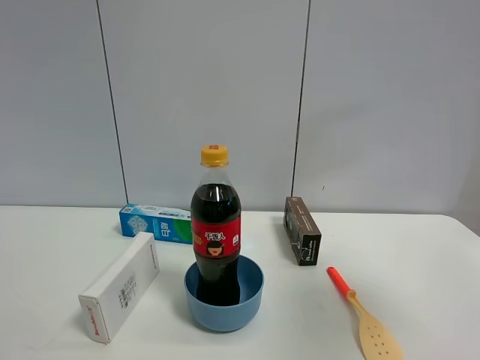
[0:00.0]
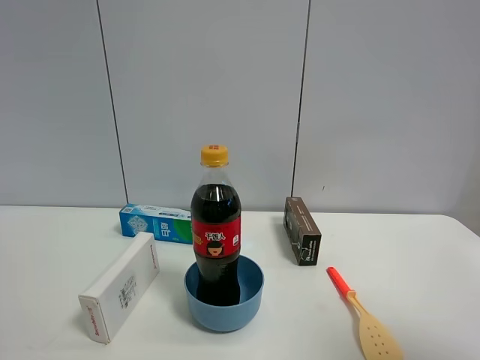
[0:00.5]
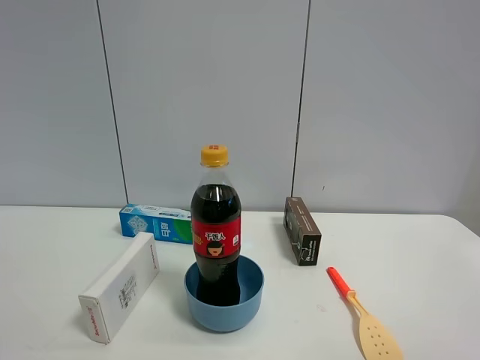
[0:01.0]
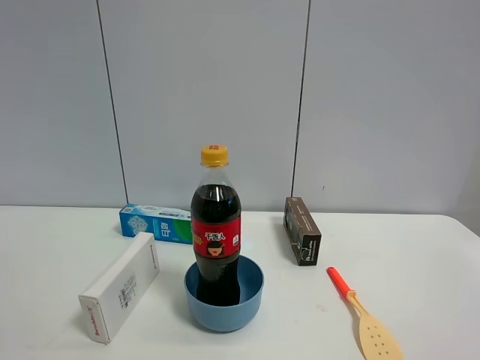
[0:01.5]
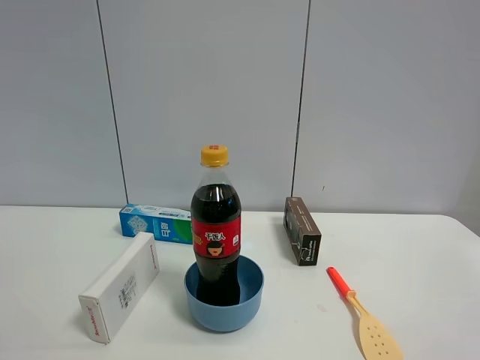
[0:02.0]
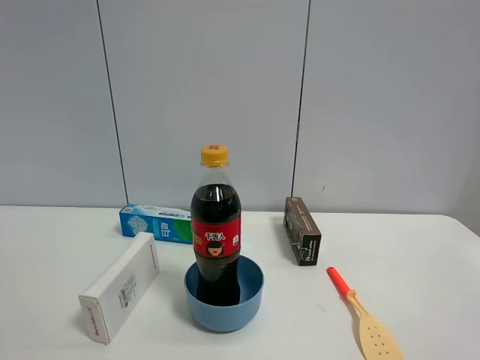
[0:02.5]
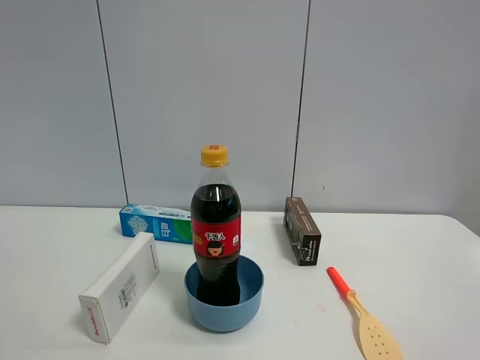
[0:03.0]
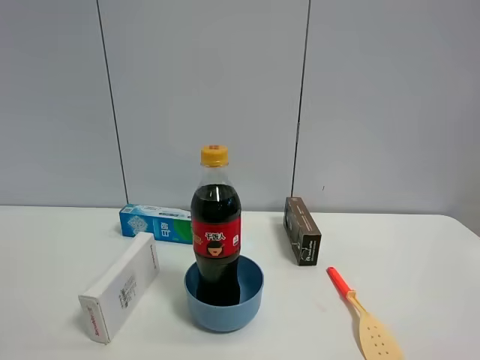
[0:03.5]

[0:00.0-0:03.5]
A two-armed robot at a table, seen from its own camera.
Task of the whole recording: the gripper move the object.
0:00.0 to 0:02.0: The right gripper goes roughly 20 cm backward and downward.
0:02.0 to 0:03.5: The two grippers keep their place.

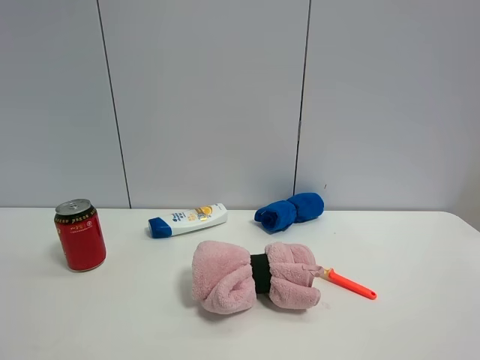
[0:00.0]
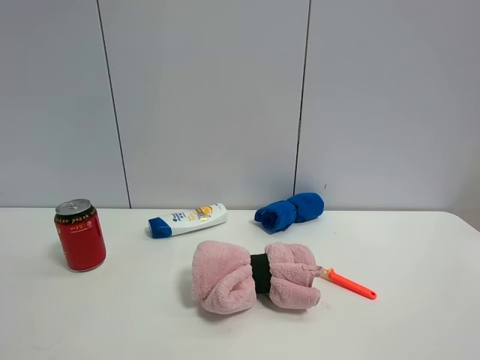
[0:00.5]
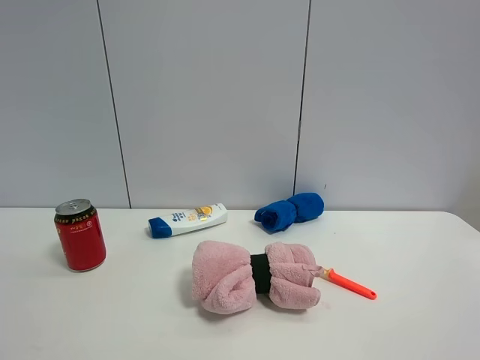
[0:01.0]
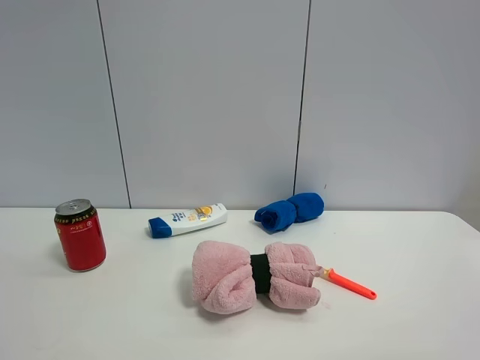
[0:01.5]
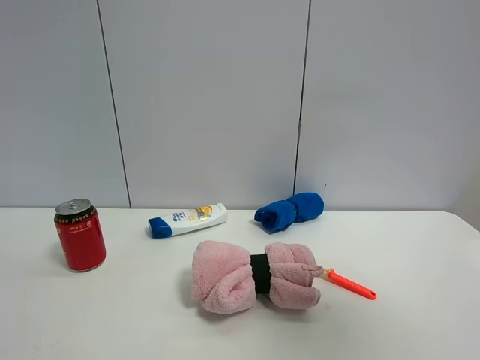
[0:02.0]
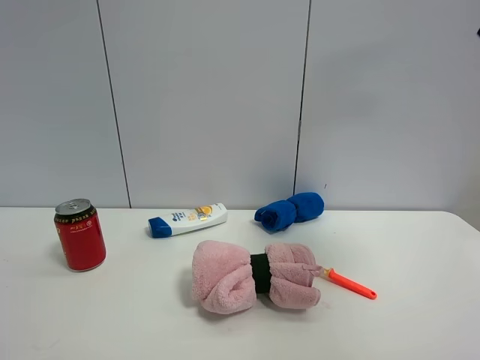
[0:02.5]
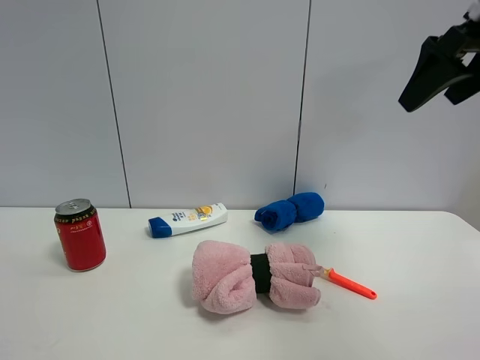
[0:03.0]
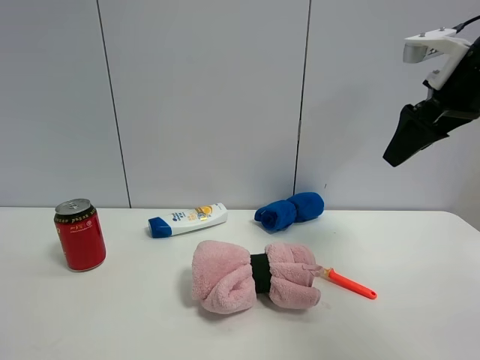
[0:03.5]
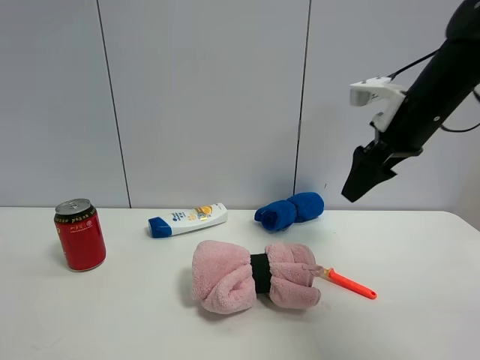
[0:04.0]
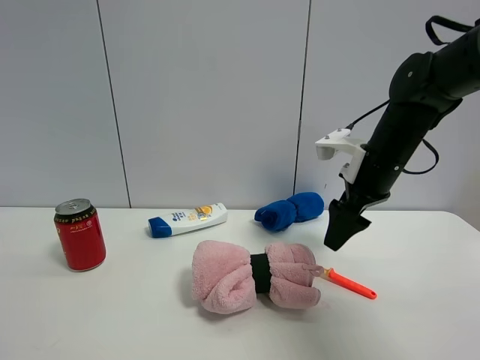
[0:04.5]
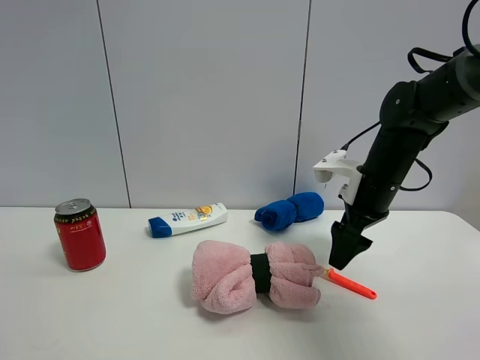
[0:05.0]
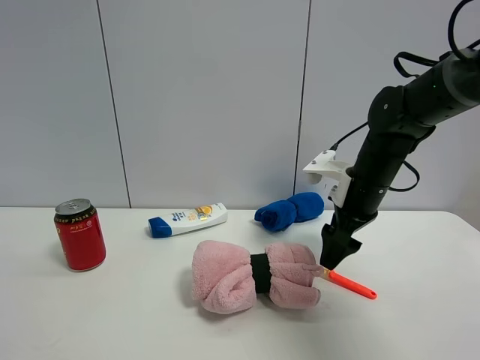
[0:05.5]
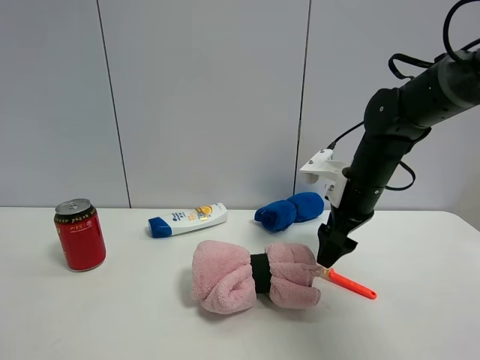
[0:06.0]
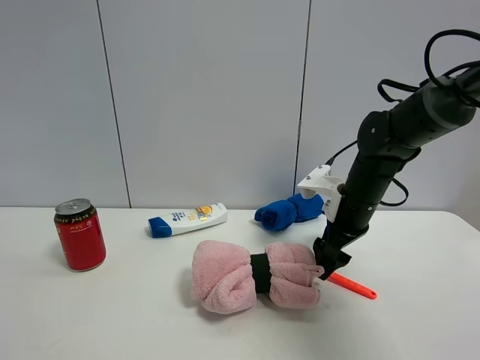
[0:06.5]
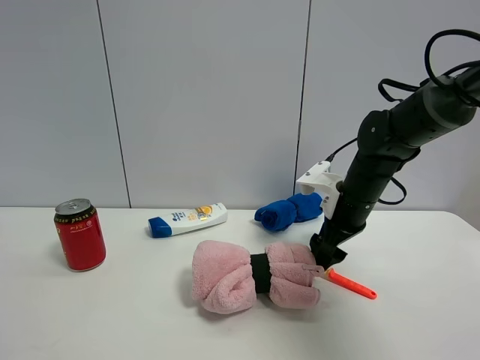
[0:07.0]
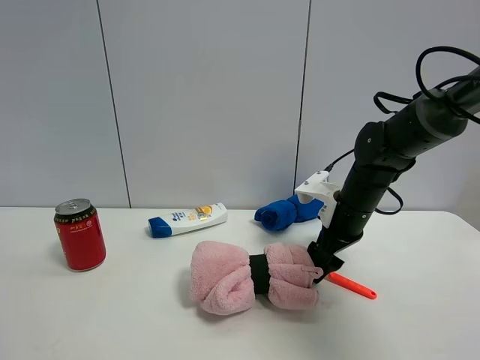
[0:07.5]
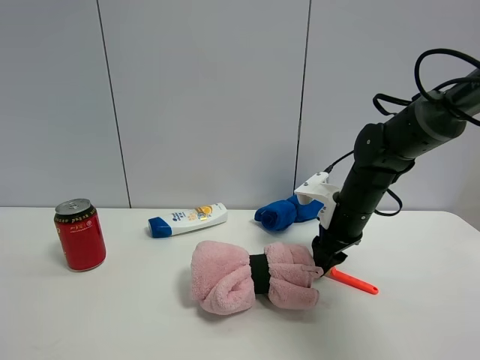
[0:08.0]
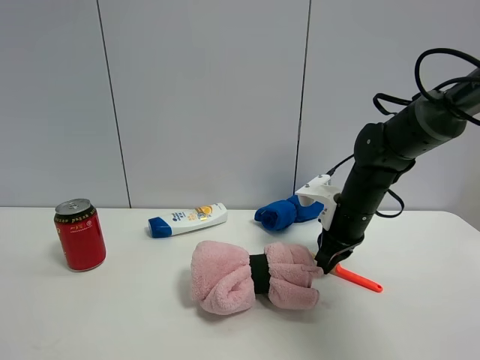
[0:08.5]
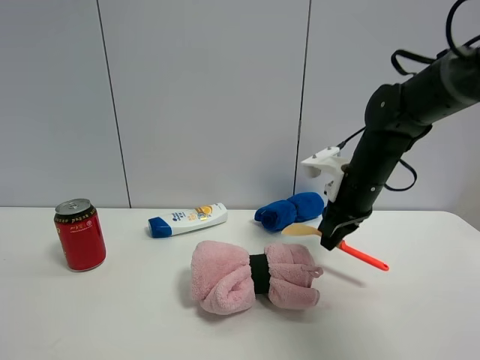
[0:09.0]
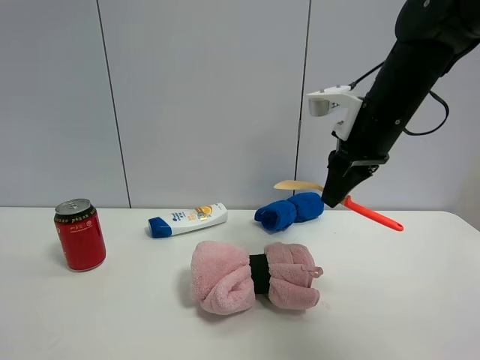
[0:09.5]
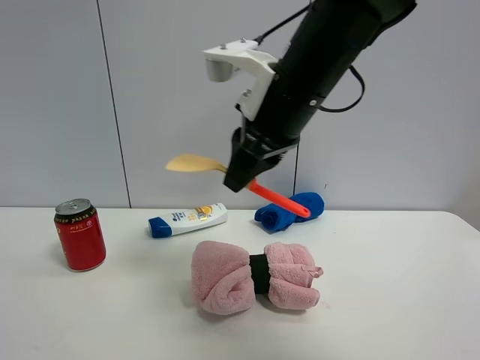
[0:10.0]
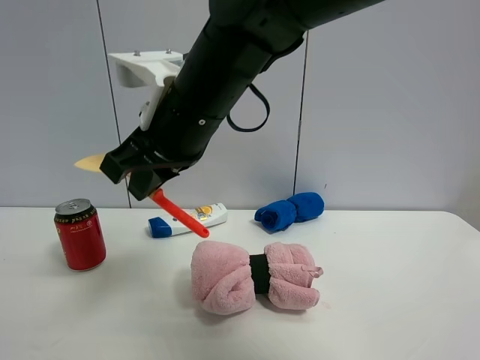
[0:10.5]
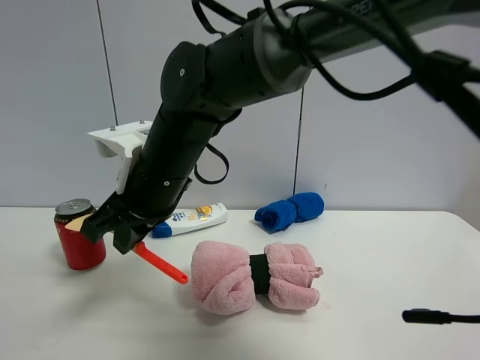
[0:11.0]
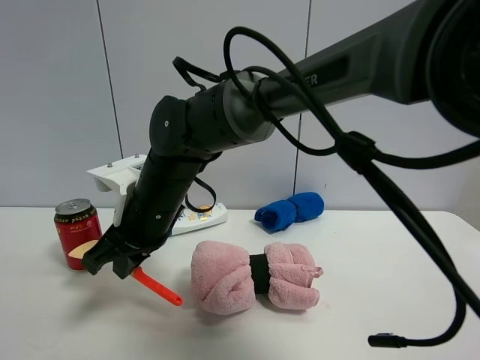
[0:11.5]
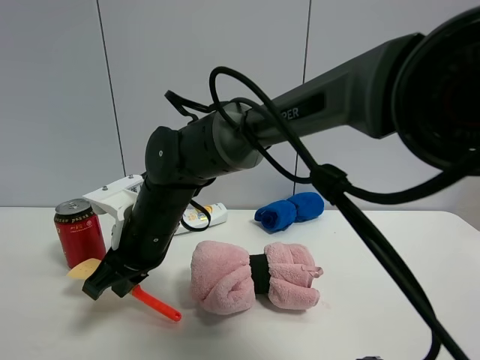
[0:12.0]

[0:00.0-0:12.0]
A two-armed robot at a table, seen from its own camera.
Task of the whole recording: the gripper move the object.
Step, 0:00.0 to 0:08.0: Grasp the cooking shovel with the right gripper.
0:00.0 to 0:02.0: The right gripper moves upward and forward, some 20 cm.
0:02.0 to 0:04.0: The right gripper moves forward and downward, some 35 cm.
0:04.0 to 0:06.0: The right gripper moves downward, roughly 10 cm.
0:06.0 to 0:08.0: The right gripper closes up.
0:08.0 to 0:10.0: The right gripper heads upward, to the left and backward, covering approximately 25 cm, and closes its fingers.
0:10.0 to 0:12.0: The right gripper travels downward and to the left by roughly 20 cm.

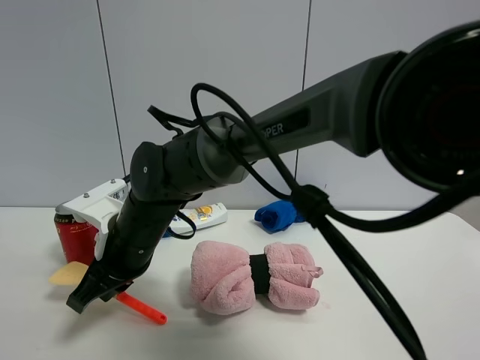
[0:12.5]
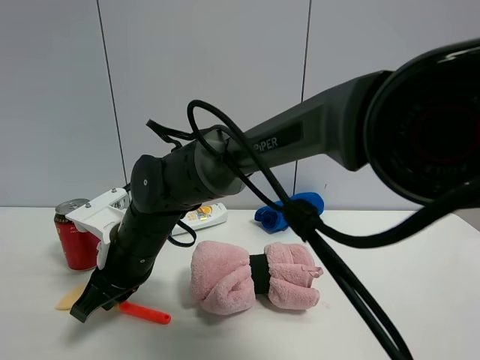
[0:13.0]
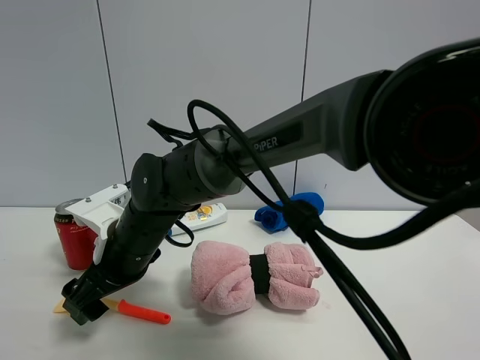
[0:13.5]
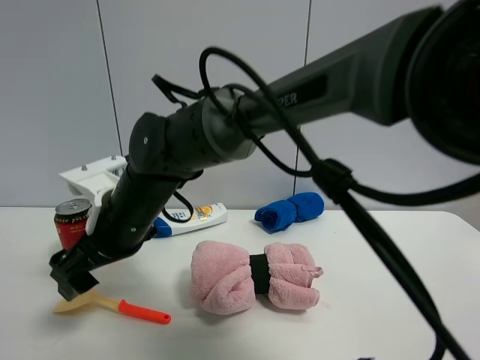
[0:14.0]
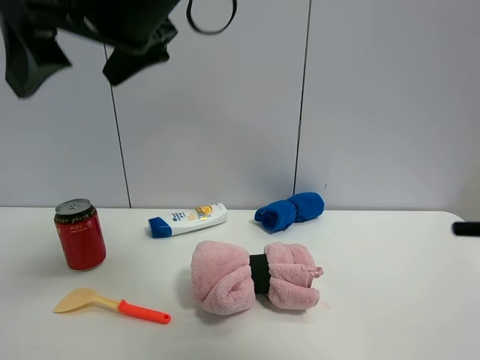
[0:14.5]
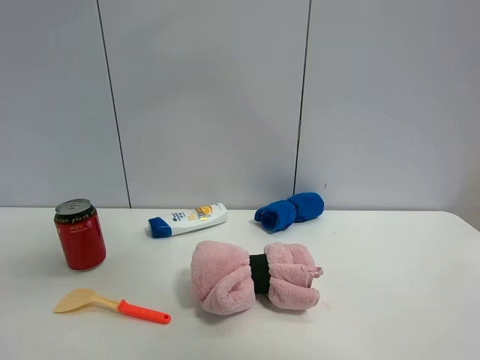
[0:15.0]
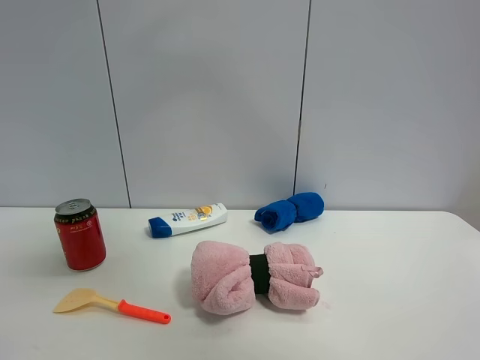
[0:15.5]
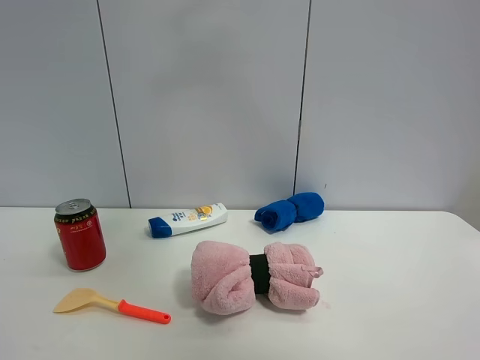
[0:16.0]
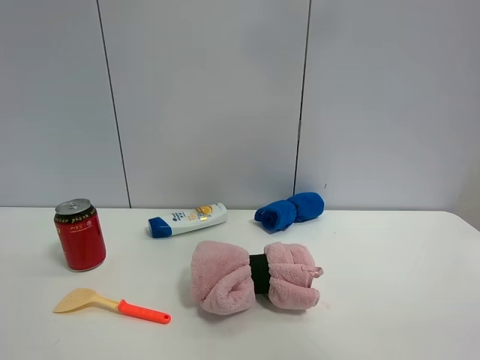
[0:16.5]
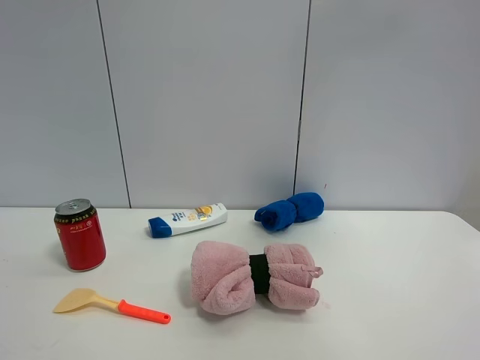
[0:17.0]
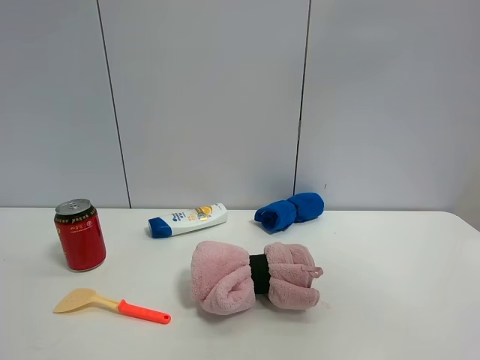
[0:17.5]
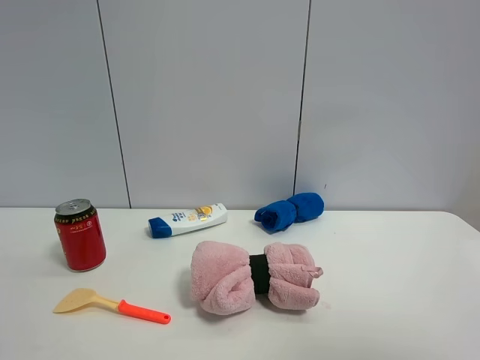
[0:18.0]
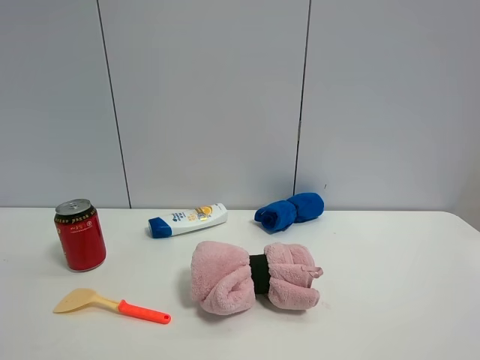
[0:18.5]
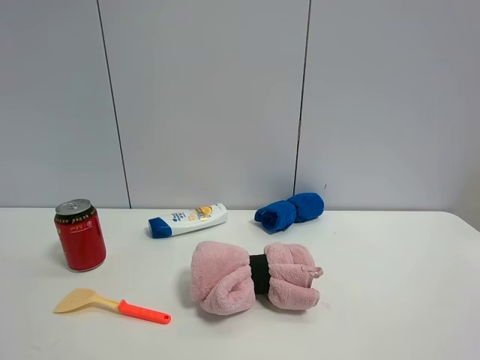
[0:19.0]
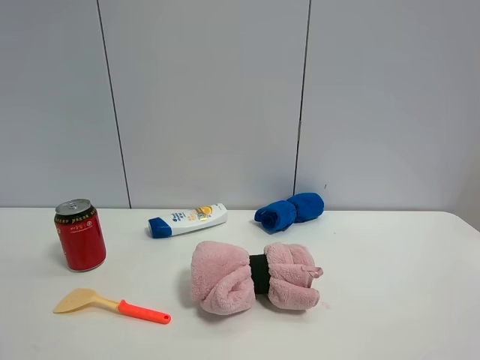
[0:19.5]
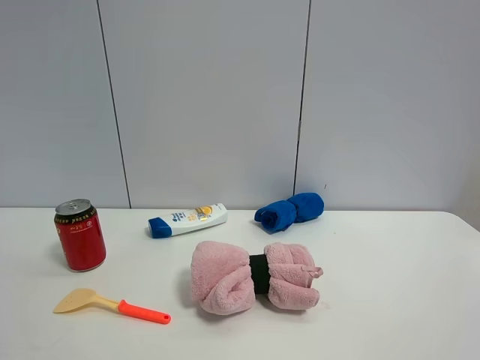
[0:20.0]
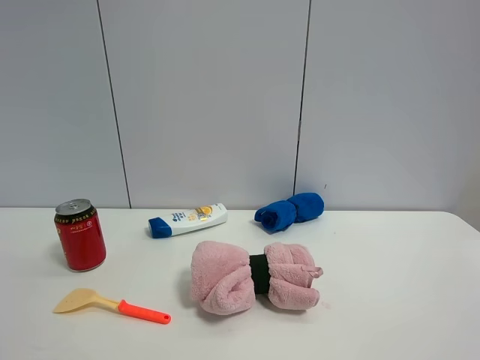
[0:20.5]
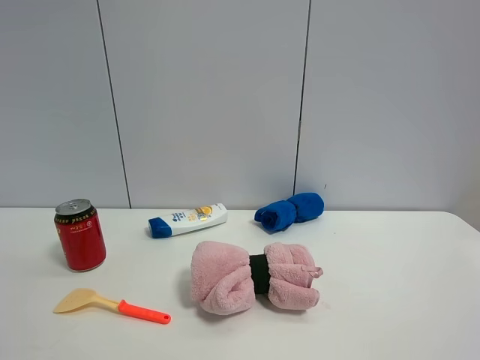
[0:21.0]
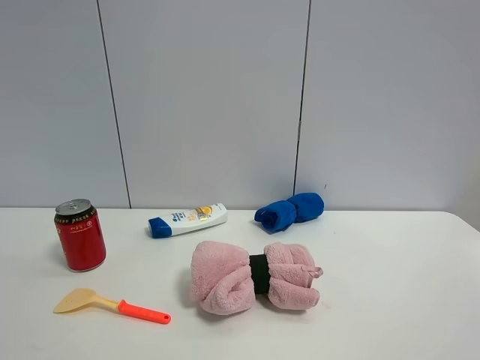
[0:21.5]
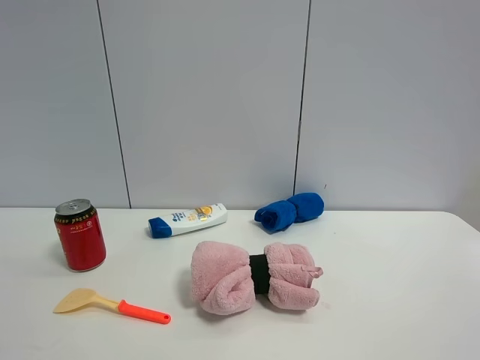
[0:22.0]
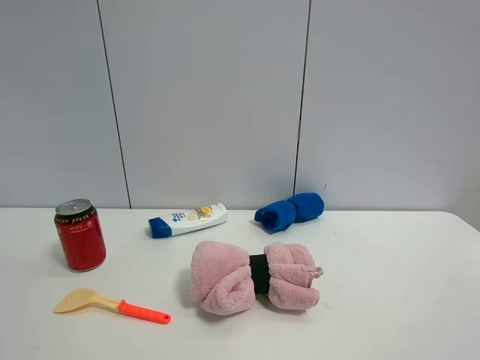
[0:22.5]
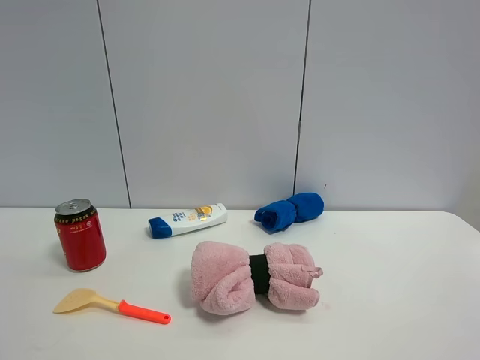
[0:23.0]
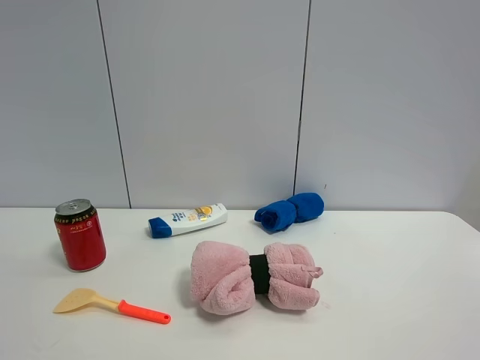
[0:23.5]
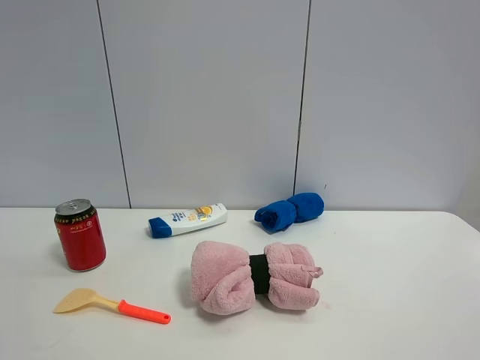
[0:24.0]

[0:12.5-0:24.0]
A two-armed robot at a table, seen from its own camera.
Task of the whole recording: the gripper move the object.
0:12.5 to 0:14.5: The right gripper heads upward, covering roughly 25 cm, and opens up.
0:14.5 to 0:16.5: The right gripper is displaced to the right and upward by approximately 25 cm.
0:16.5 to 0:18.5: The right gripper shifts roughly 40 cm backward and downward.
0:22.0 to 0:24.0: Neither gripper changes place.
